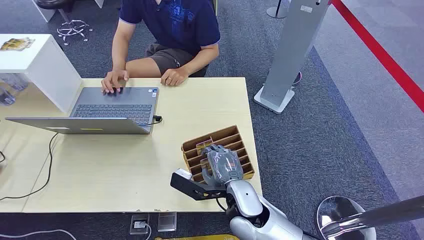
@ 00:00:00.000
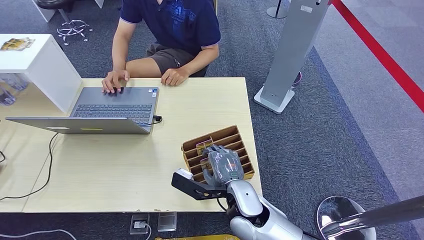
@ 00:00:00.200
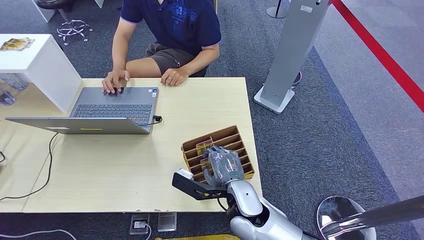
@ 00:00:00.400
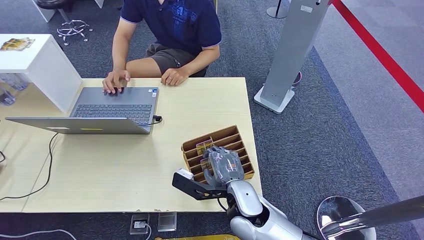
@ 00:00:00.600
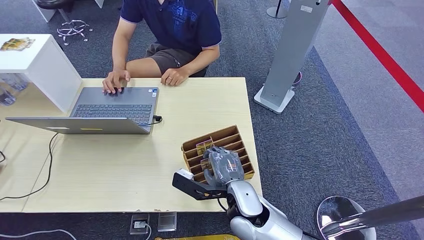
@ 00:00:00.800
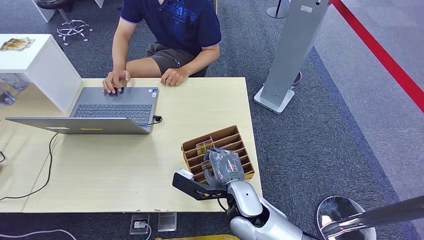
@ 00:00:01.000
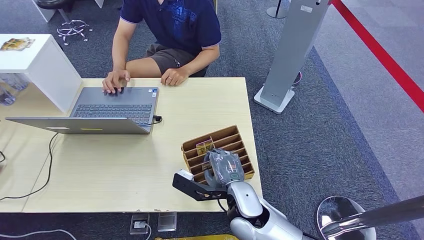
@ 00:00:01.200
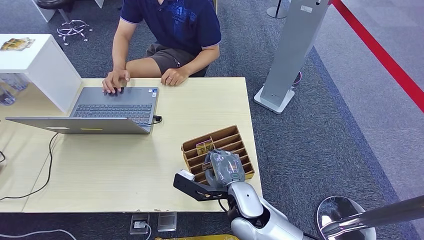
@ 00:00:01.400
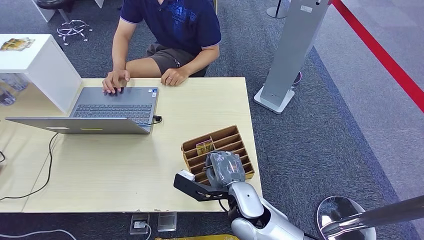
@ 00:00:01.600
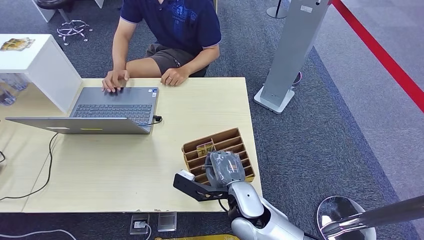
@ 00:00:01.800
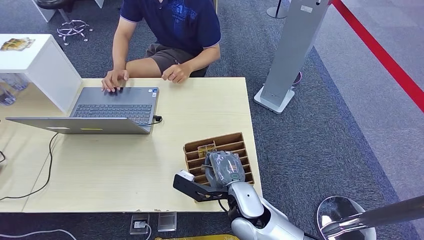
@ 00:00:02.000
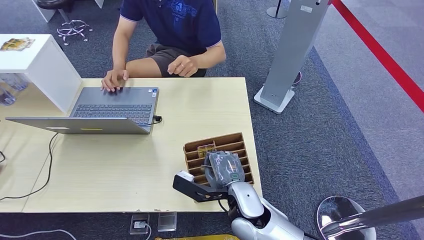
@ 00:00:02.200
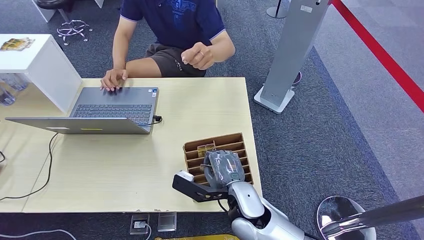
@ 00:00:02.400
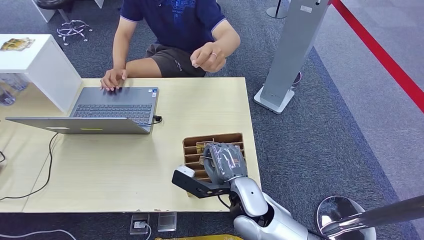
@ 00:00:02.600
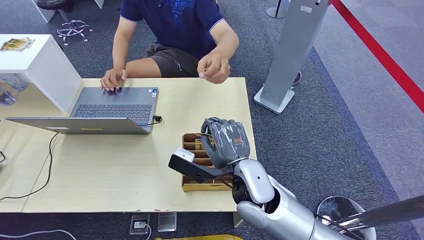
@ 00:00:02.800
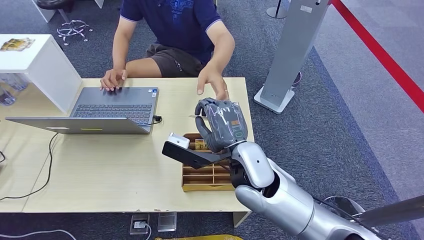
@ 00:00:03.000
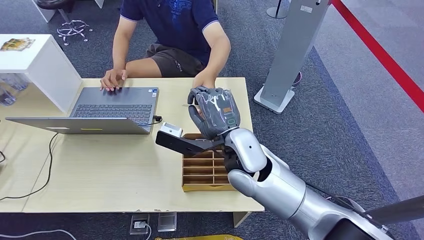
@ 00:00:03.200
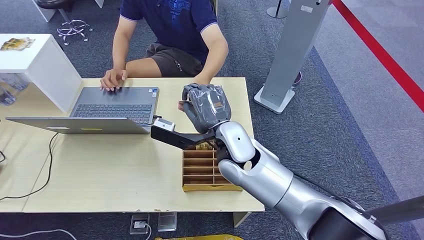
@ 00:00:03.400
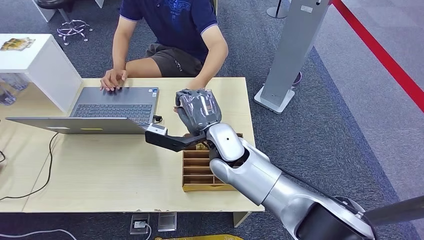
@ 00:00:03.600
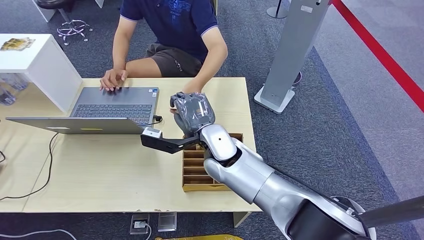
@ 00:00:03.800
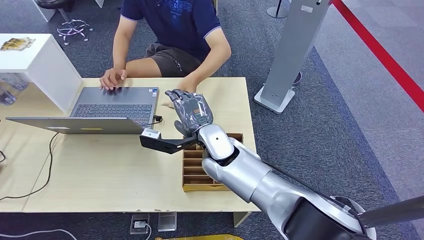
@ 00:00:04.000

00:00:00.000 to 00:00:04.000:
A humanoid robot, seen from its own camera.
Task of the whole recording: Pick up the card and hand it over to the target person.
Step, 00:00:00.000 to 00:00:02.600: Pick up the key card from the card box.
Step, 00:00:03.000 to 00:00:04.000: Hand the key card to the target.
00:00:01.400 to 00:00:02.600: The right hand travels upward by some 10 cm.
00:00:02.600 to 00:00:04.000: The right hand shifts roughly 15 cm forward and to the left.

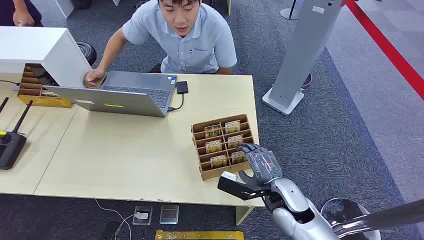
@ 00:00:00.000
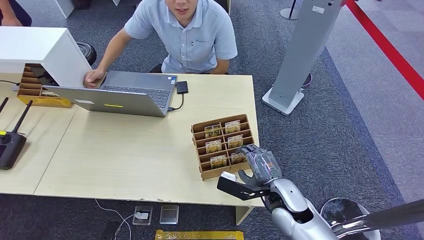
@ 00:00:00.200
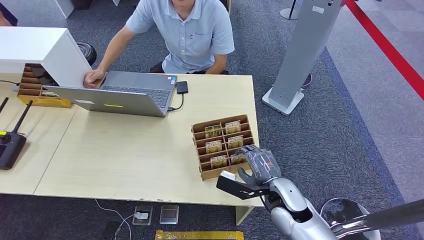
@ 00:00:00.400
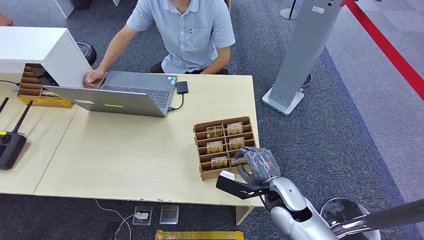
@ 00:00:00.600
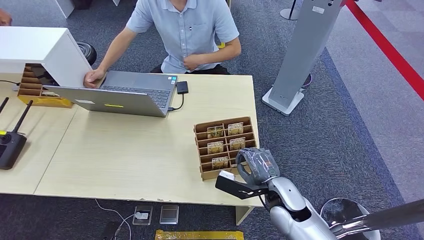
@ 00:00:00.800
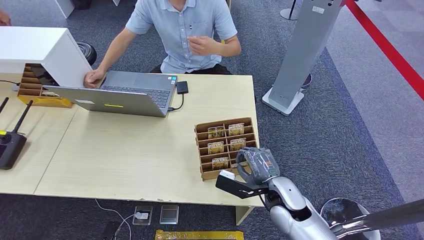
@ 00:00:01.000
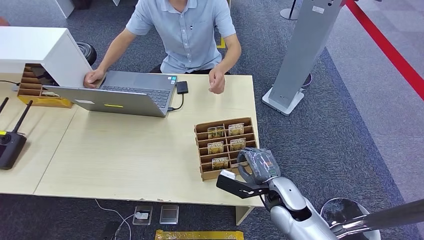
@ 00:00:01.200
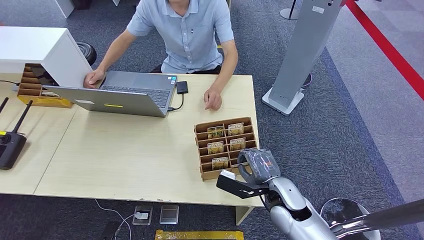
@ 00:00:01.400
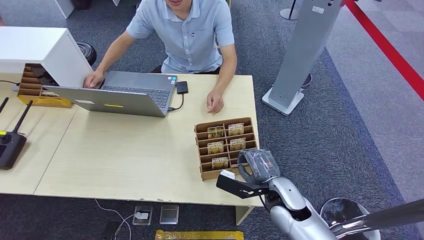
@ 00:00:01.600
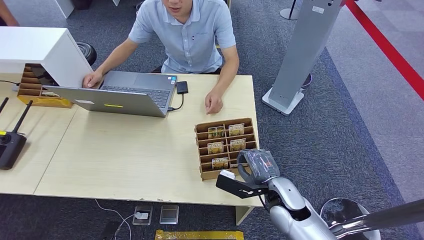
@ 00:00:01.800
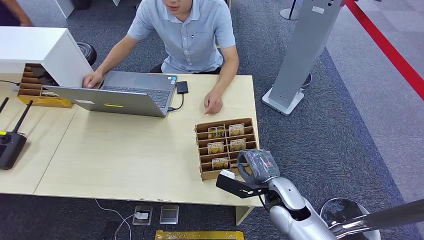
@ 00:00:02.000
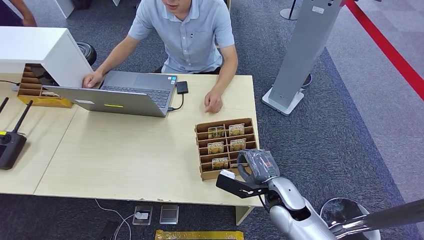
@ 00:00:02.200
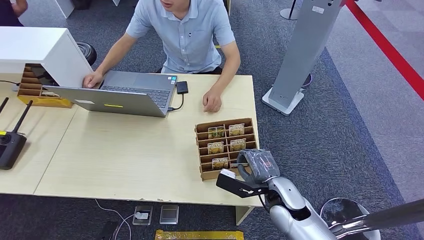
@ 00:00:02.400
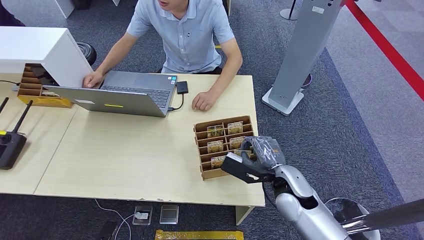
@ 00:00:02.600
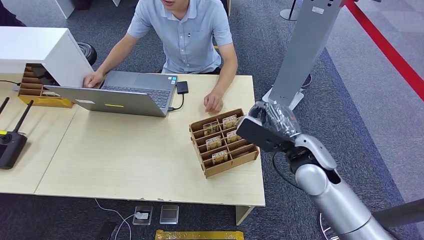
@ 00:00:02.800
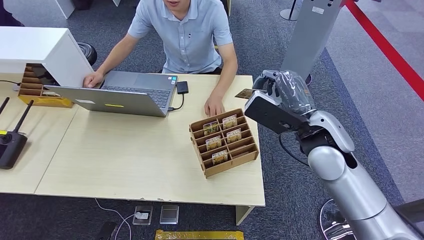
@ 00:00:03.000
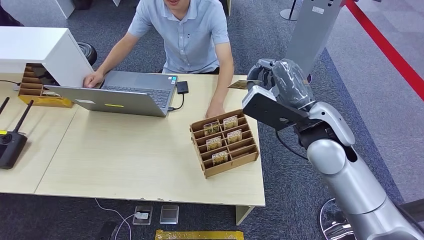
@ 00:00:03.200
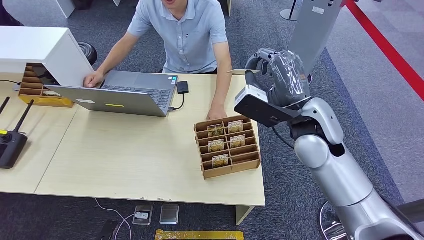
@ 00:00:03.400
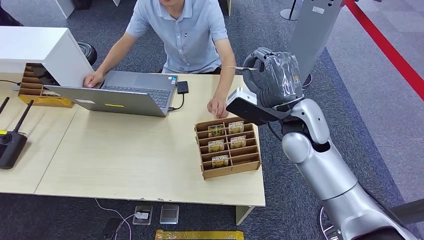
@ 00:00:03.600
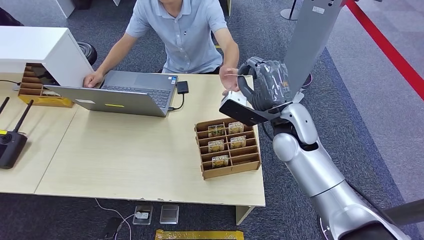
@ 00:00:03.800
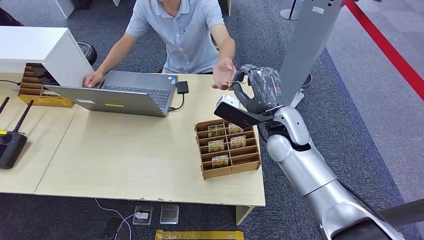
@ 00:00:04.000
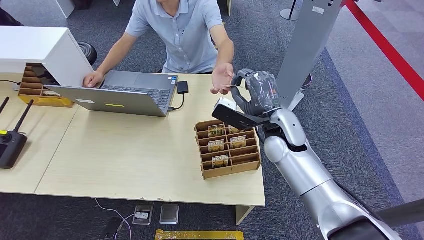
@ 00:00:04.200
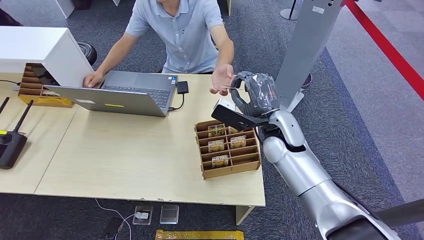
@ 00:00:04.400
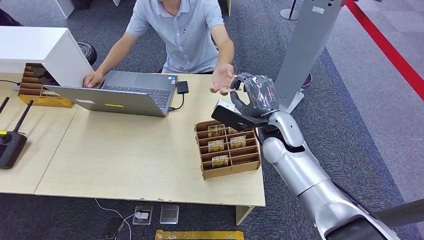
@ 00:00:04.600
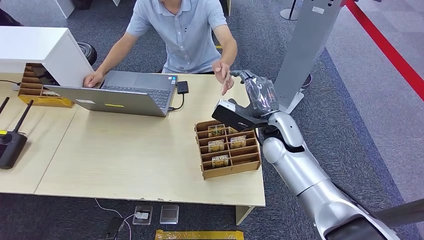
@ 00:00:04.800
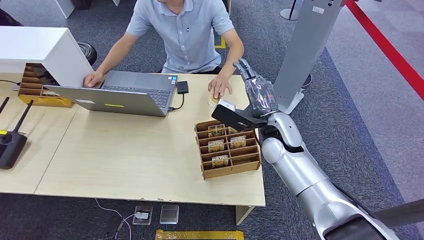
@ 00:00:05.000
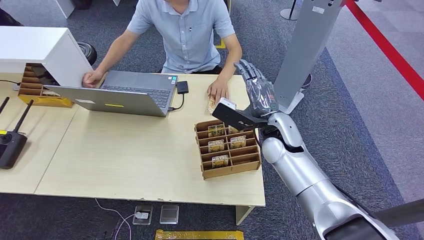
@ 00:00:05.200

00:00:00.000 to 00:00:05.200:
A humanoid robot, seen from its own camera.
Task of the whole recording: Pick up the card and hand it over to the target person.
Step, 00:00:00.000 to 00:00:02.800: Pick up the key card from the card box.
Step, 00:00:03.600 to 00:00:05.200: Hand the key card to the target.
